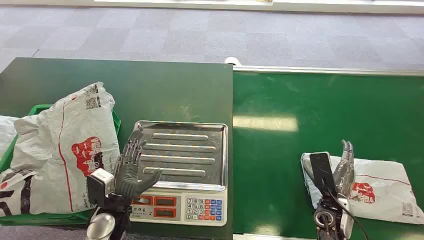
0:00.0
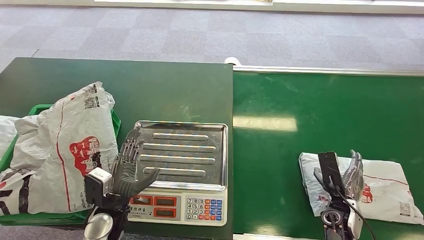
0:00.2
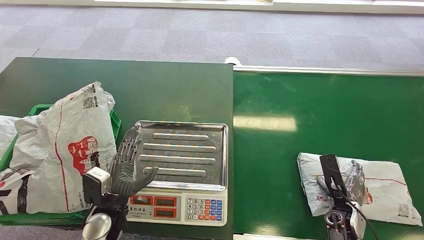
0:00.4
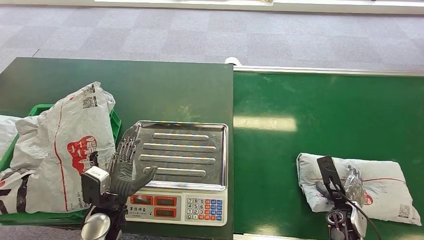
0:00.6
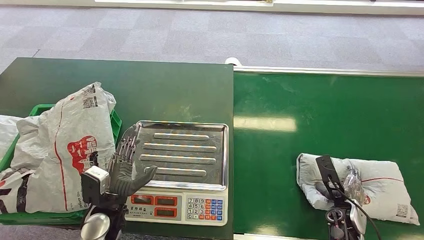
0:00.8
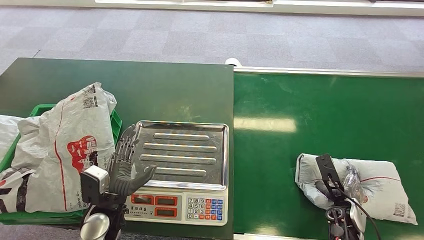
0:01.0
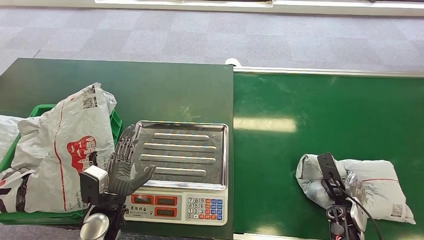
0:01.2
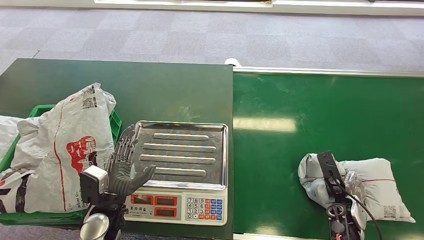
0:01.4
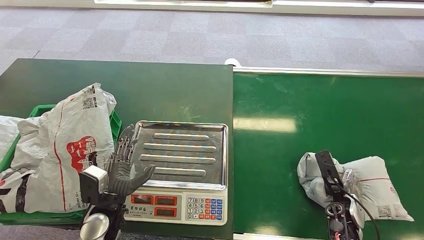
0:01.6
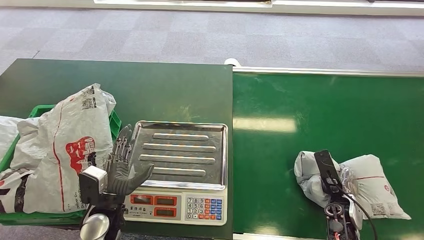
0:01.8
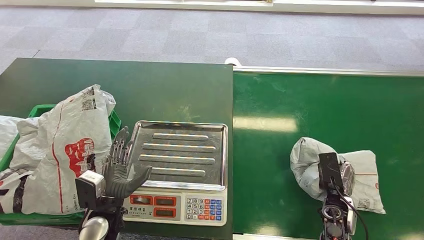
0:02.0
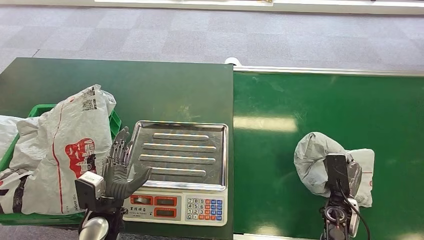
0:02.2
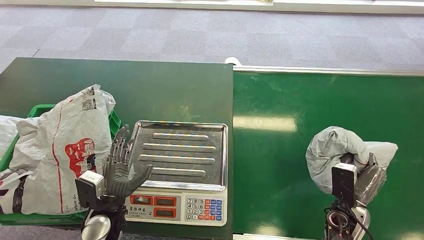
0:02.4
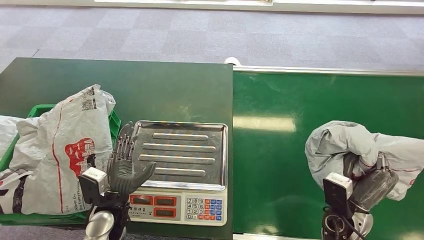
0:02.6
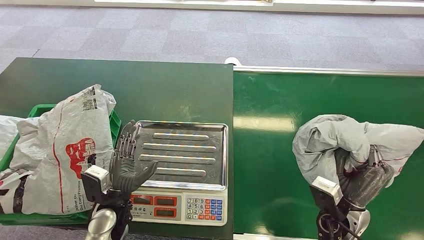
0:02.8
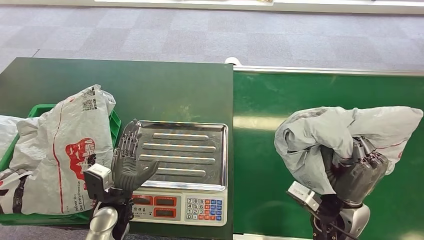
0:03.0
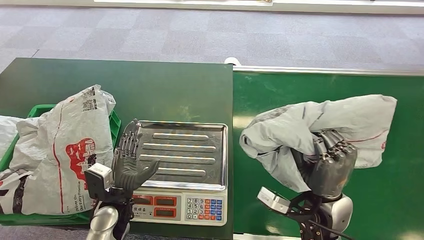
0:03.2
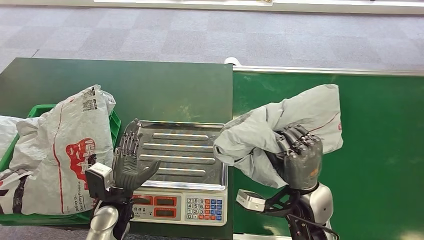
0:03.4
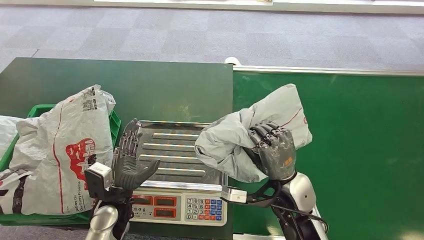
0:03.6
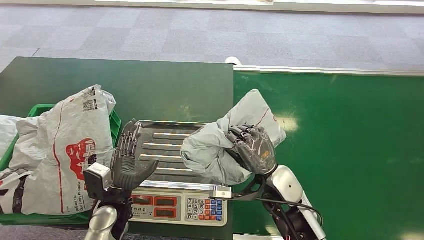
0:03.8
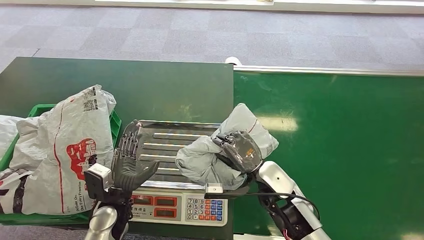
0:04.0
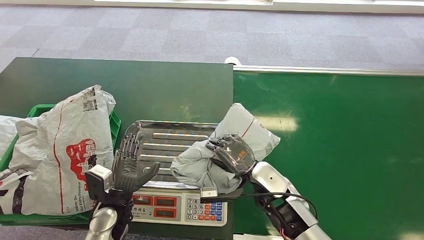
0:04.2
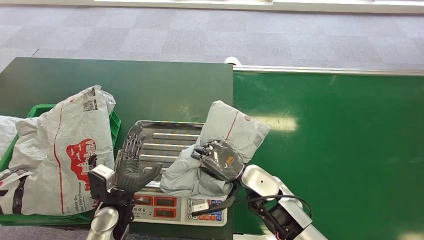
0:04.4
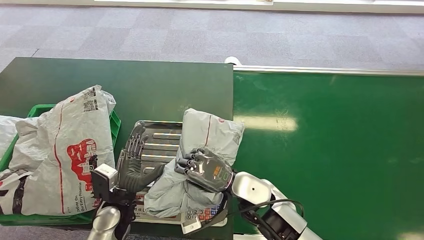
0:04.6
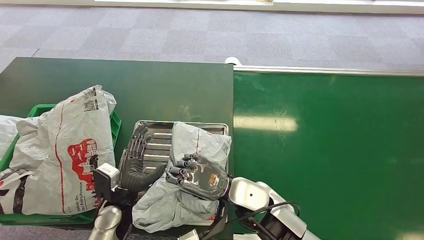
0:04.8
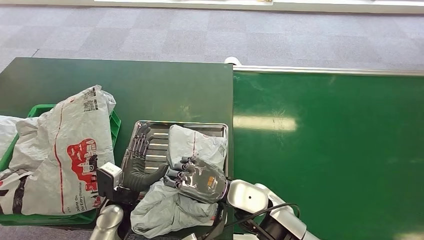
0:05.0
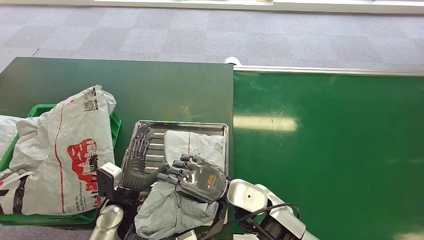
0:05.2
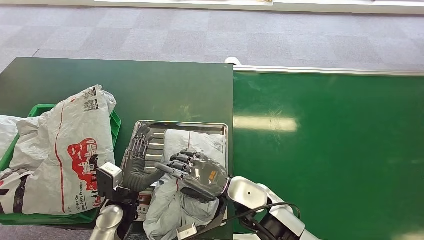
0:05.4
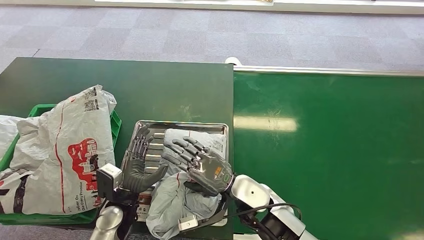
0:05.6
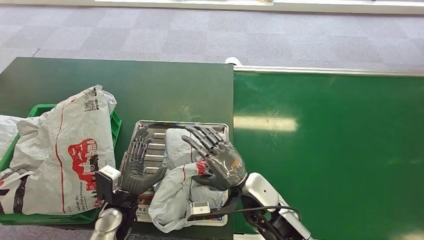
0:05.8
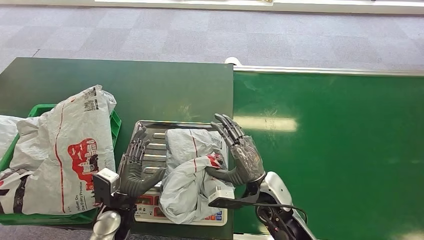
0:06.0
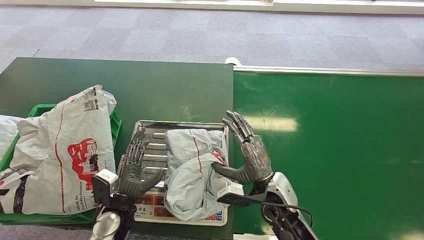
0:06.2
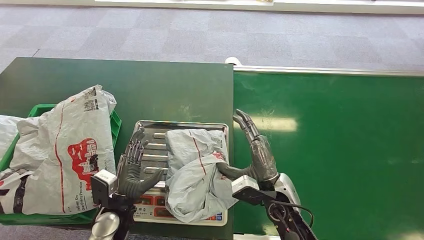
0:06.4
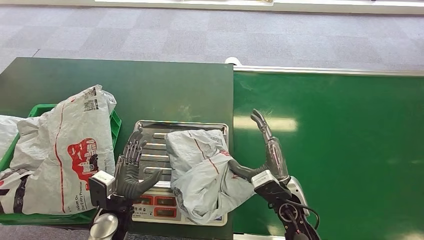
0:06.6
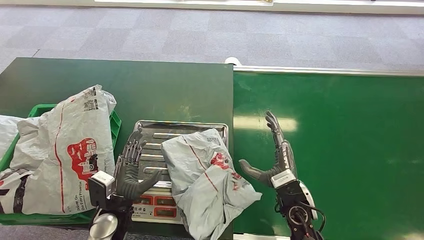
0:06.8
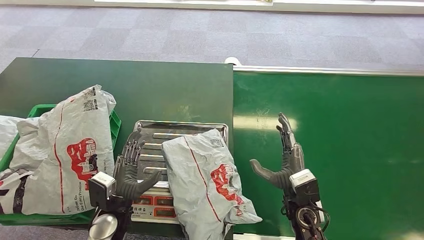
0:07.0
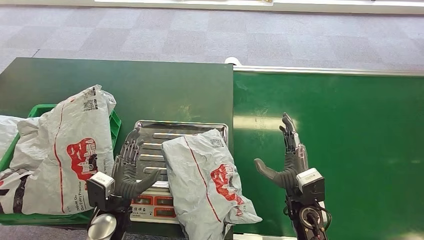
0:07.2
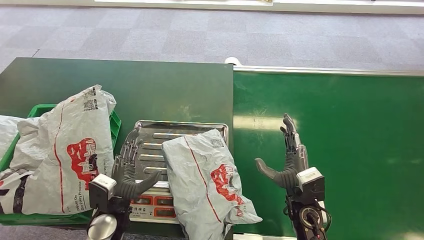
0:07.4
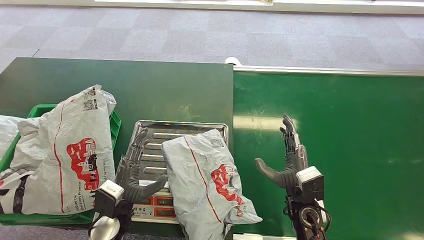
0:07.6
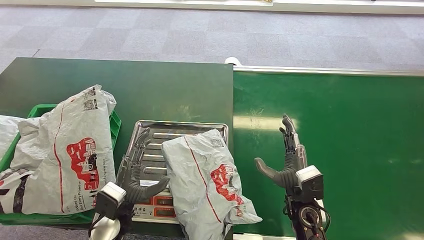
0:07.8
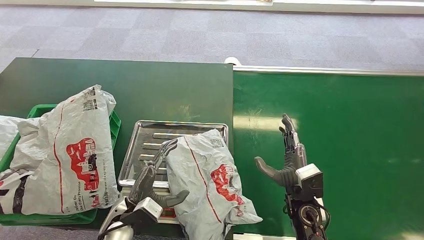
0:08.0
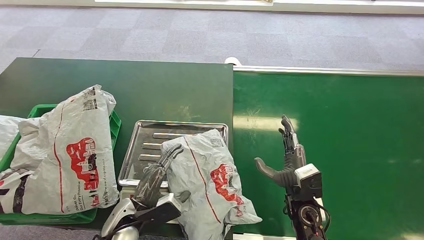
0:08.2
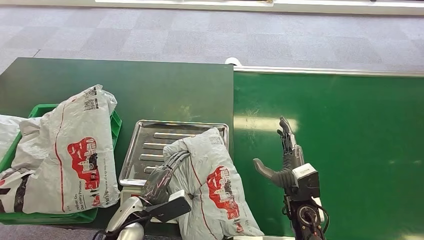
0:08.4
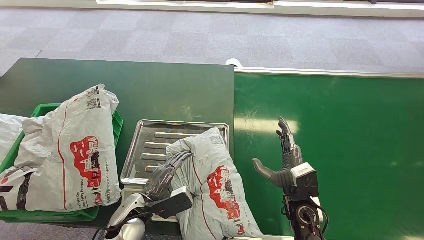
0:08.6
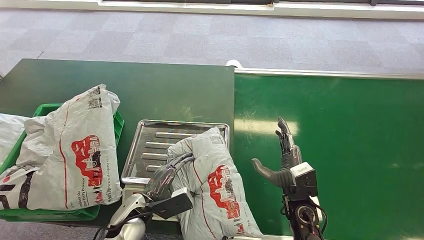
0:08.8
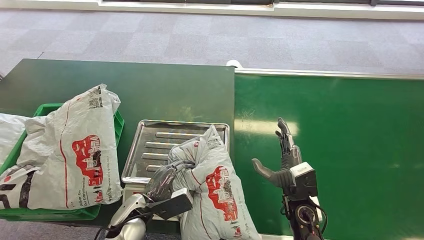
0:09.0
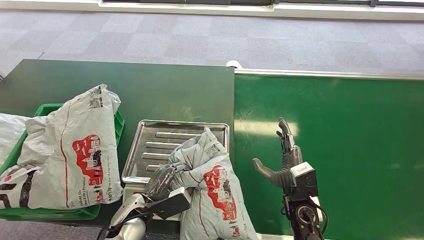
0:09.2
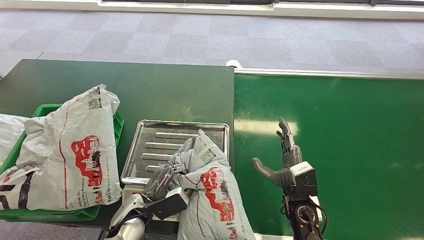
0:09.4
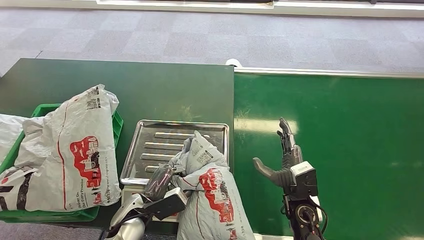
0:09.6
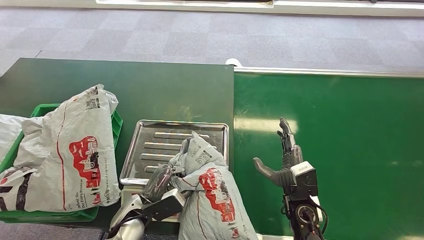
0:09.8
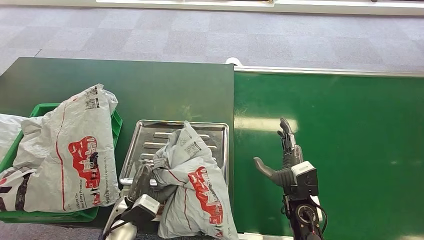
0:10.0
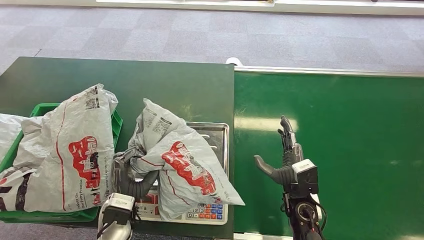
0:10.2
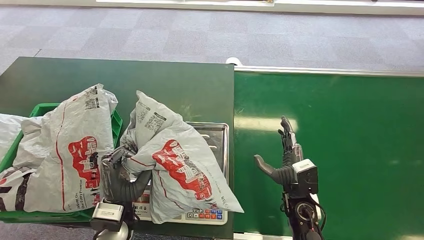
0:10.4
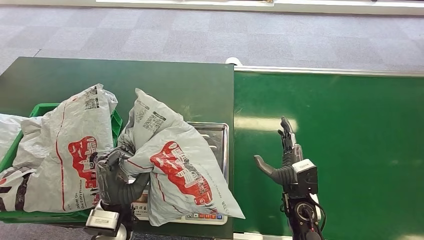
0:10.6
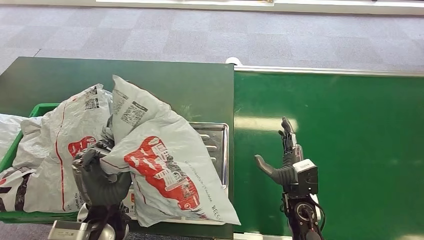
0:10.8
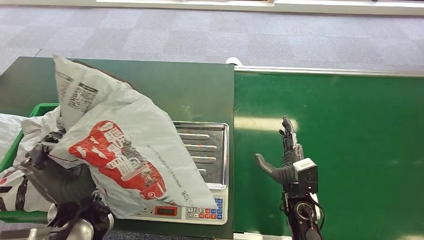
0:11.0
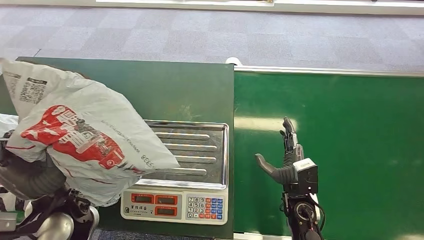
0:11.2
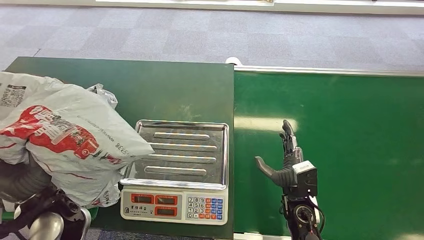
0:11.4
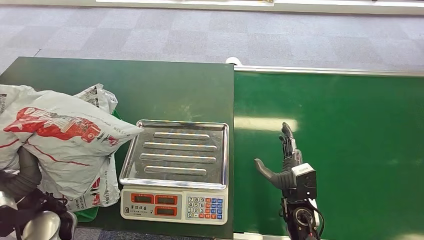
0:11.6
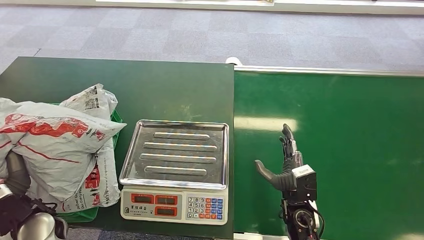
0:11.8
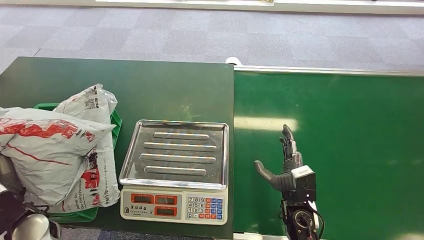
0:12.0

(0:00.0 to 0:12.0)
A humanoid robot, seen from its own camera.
Step, 0:00.0 - 0:01.8: Pick up the package from the conveyor belt.
Step, 0:03.2 - 0:07.2: Place the package onto the inbound machine.
Step, 0:08.2 - 0:10.2: Pick up the package from the inbound machine.
0:06.0 - 0:07.6: The right hand travels to the right by some 5 cm.
0:10.4 - 0:12.0: The left hand shifts roughly 15 cm to the left.

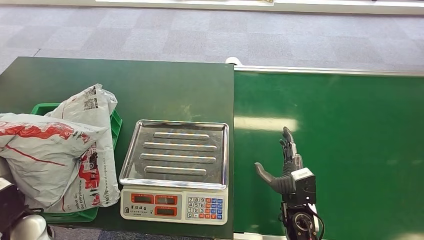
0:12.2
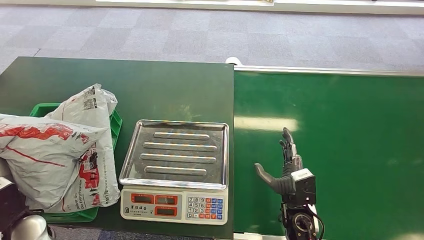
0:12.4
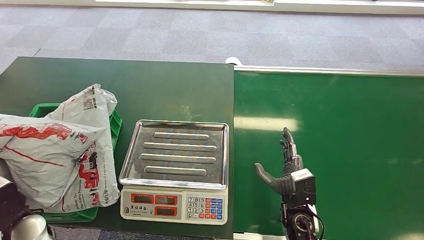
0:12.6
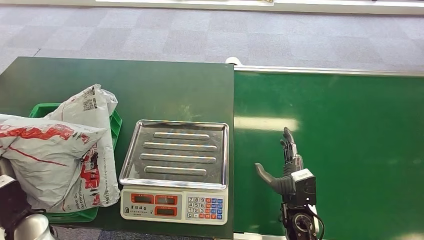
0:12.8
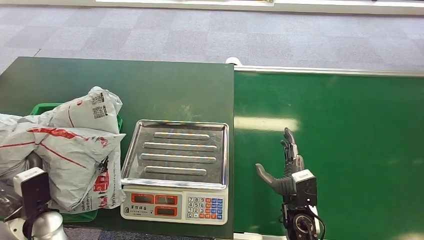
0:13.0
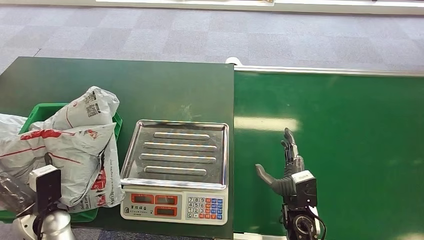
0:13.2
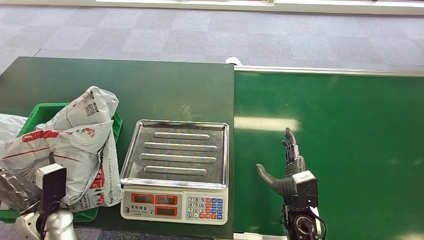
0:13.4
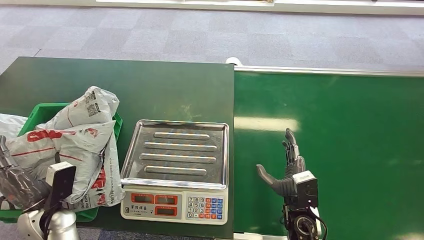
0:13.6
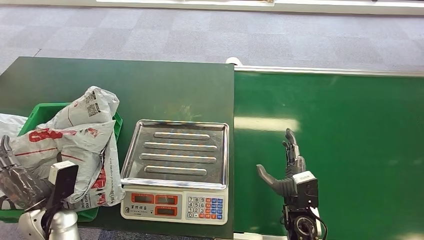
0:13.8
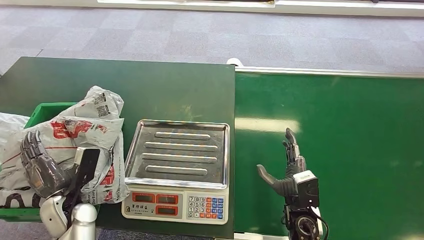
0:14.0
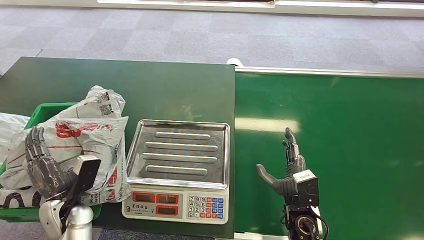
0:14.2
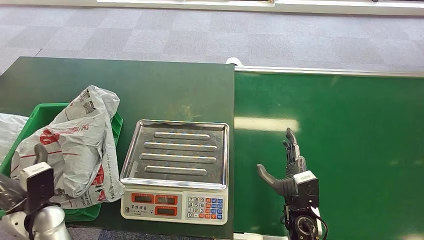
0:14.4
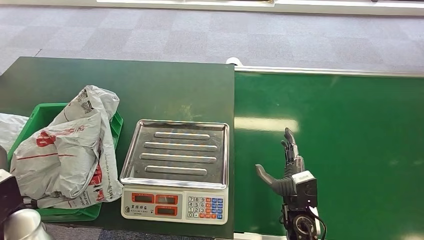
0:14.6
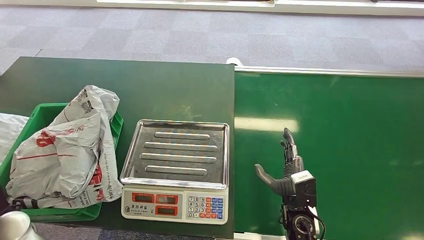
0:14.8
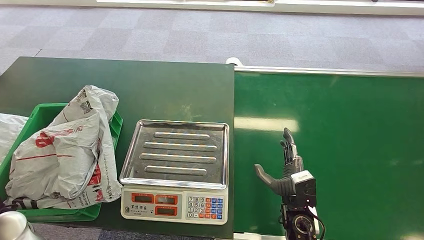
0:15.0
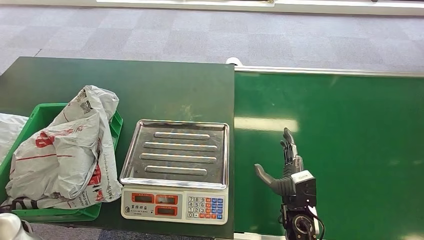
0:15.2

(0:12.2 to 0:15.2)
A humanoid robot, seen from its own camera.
Step, 0:12.2 - 0:15.2: Place the package into the parcel locker.
0:12.2 - 0:13.8: The left hand is displaced downward by roughly 5 cm.
0:13.8 - 0:15.2: The left hand shifts approximately 10 cm upward.
